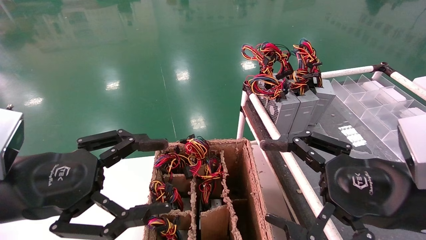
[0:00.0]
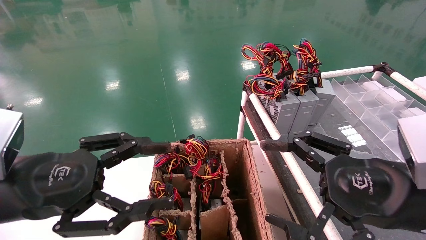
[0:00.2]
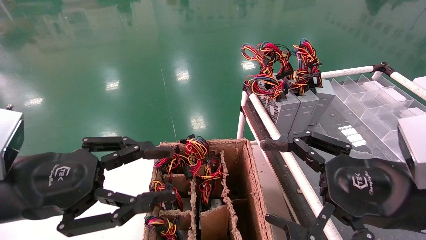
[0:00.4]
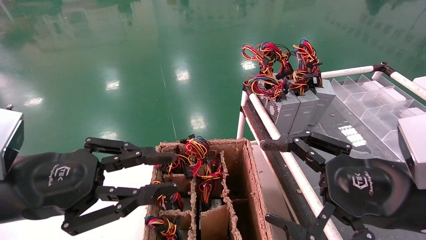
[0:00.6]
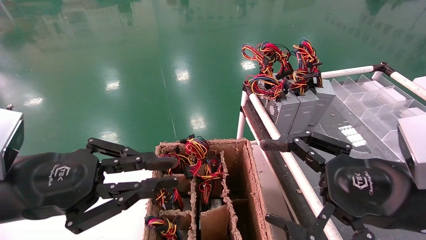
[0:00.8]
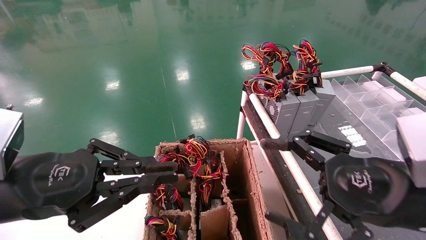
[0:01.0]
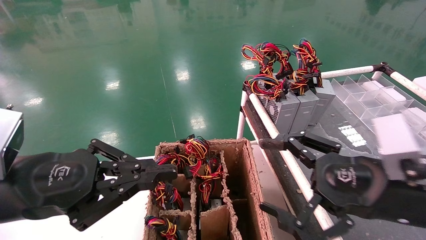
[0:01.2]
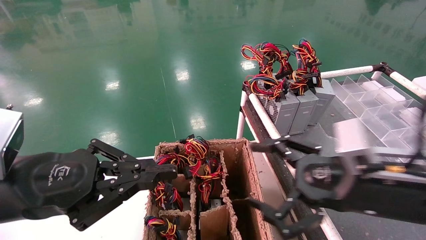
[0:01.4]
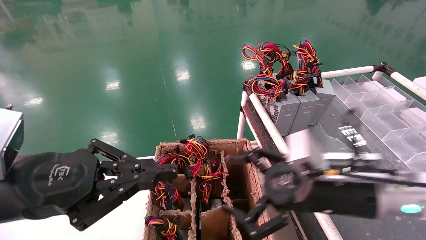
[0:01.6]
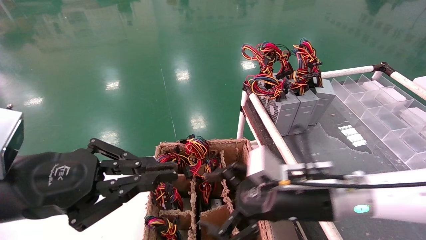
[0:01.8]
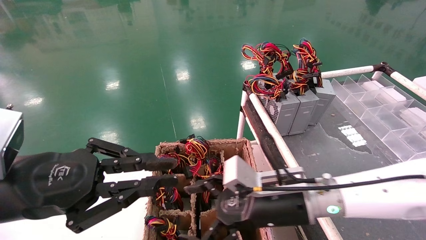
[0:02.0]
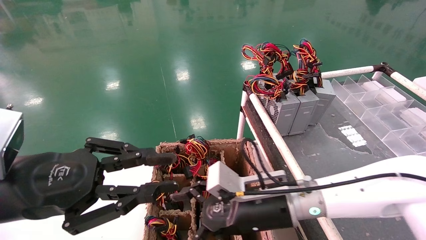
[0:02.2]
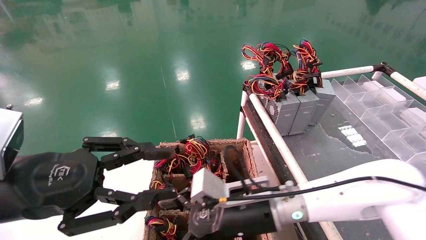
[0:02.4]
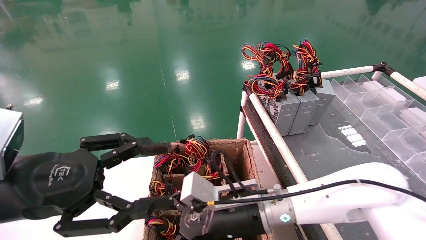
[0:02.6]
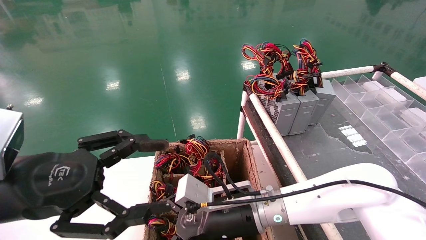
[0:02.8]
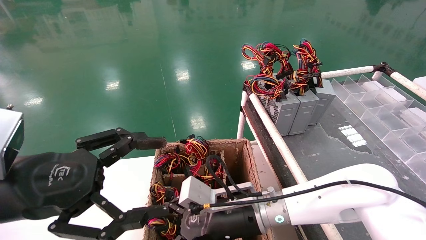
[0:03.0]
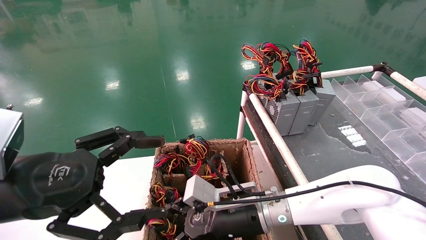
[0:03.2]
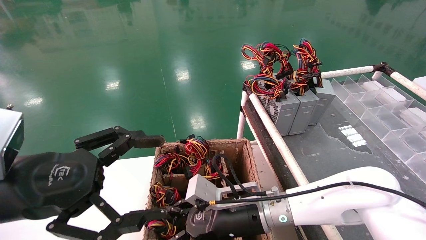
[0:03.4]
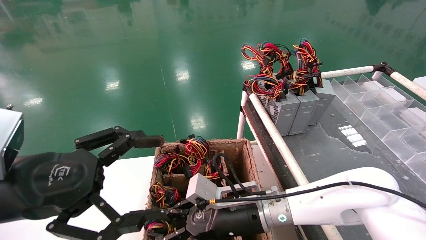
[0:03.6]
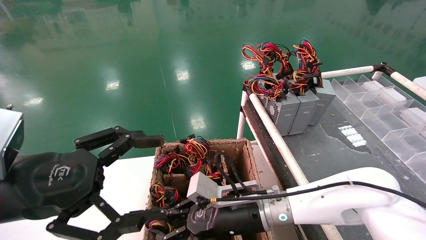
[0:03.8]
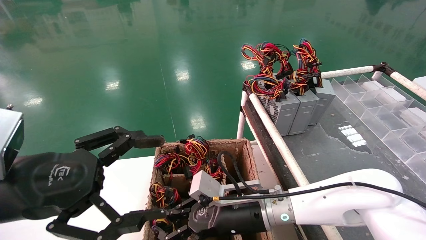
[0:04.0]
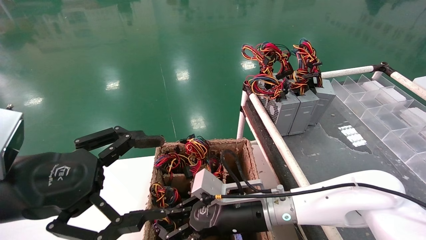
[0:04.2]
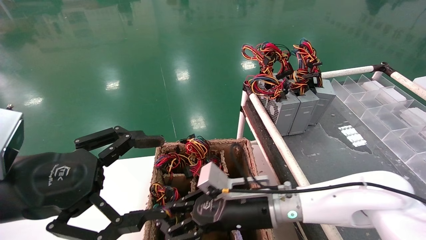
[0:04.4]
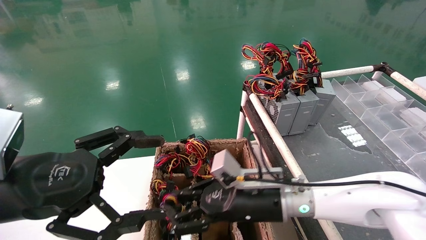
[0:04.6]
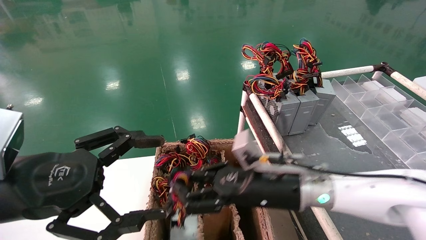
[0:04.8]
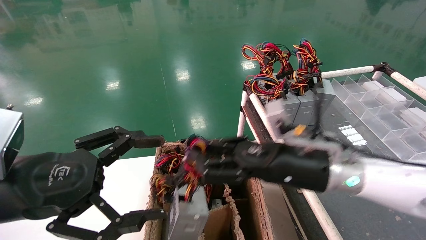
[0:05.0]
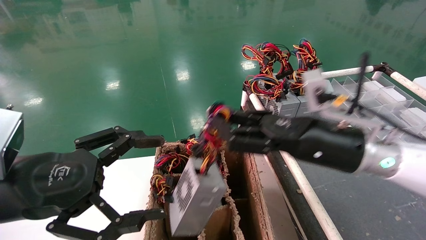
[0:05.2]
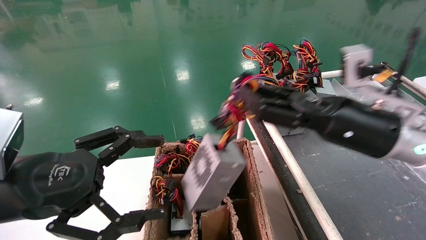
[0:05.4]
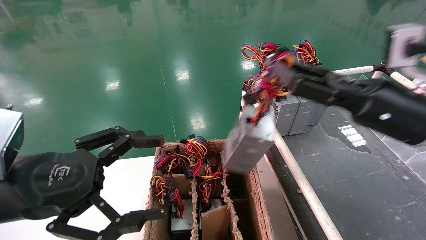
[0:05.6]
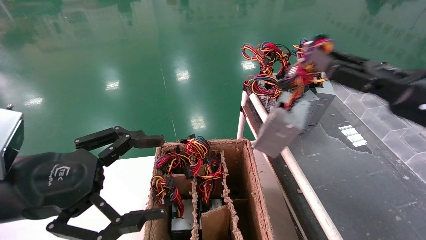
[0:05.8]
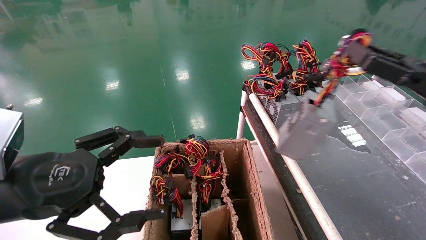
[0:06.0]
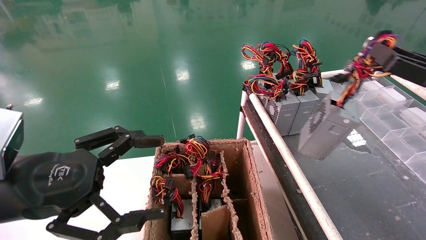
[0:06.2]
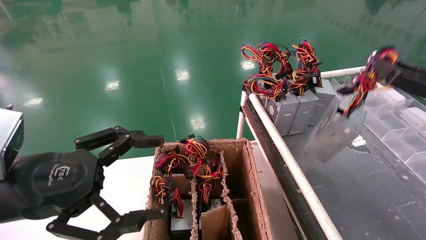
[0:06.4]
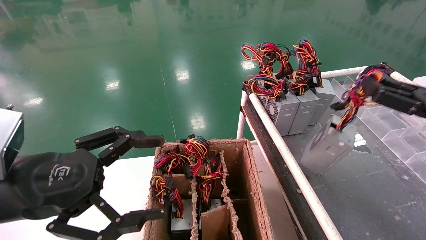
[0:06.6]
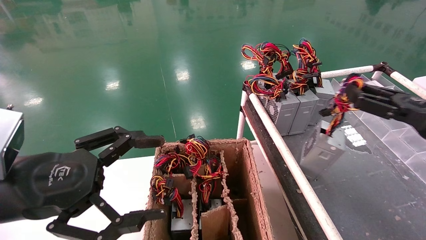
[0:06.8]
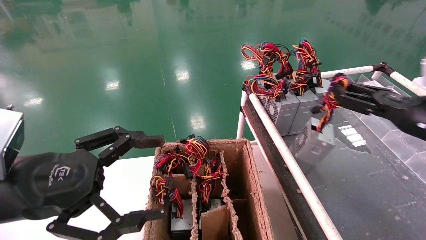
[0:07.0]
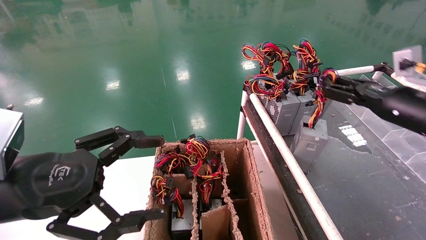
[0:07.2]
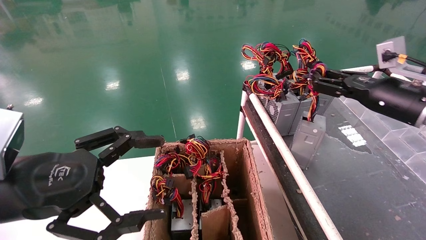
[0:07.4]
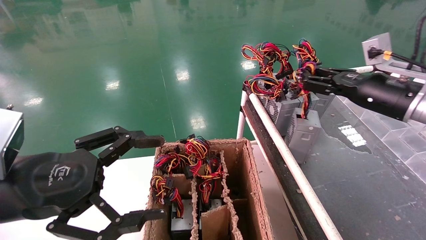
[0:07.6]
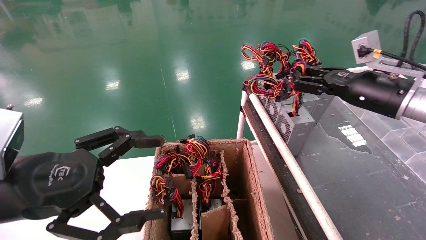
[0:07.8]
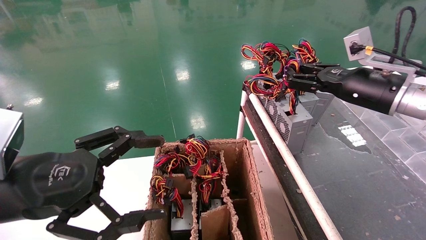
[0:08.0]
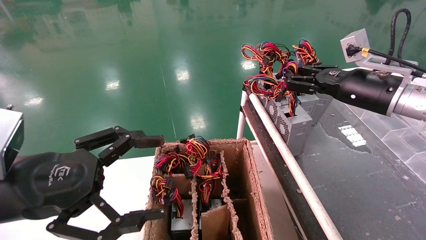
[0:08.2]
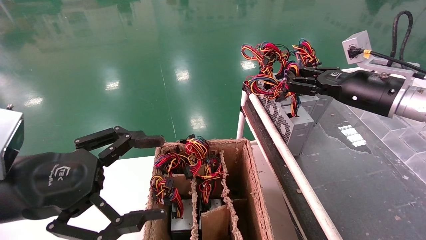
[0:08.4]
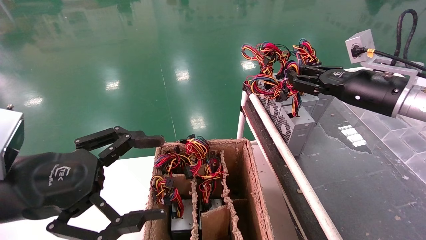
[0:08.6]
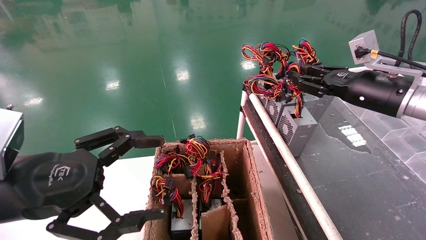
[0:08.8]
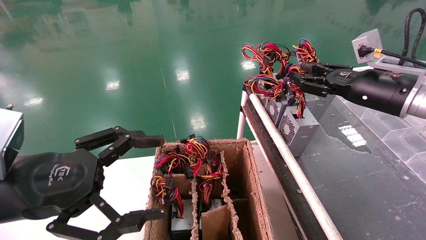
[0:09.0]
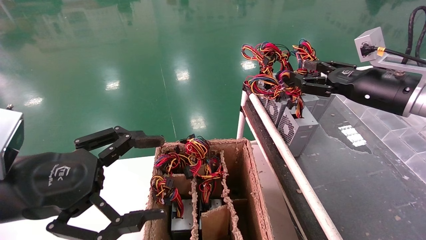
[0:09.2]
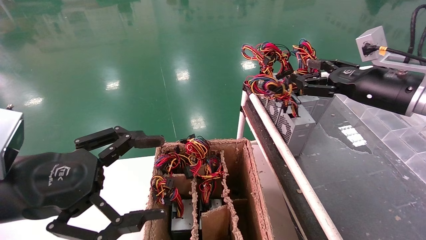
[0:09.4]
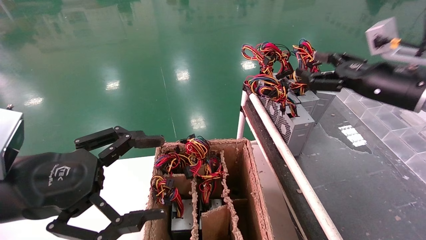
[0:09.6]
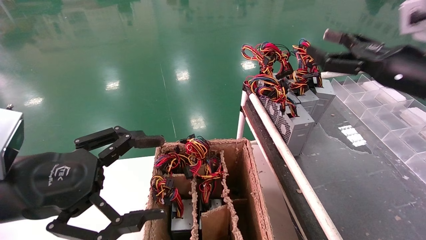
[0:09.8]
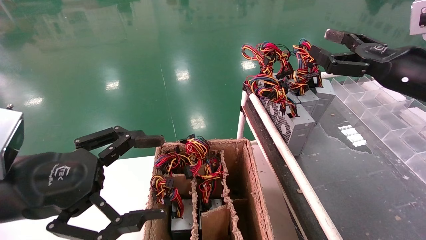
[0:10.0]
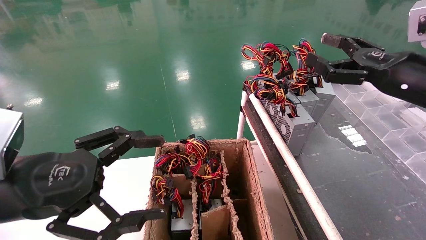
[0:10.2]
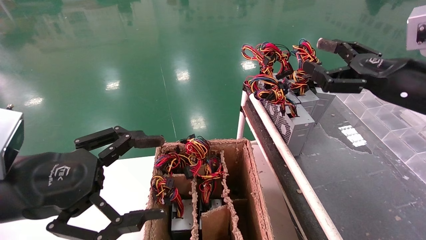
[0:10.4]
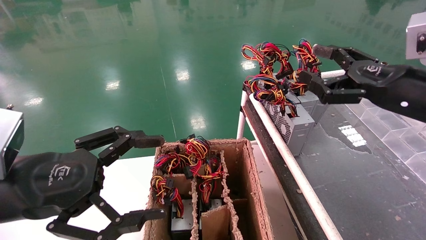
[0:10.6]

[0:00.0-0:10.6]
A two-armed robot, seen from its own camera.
Step, 1.4 to 4.6 s: Grab and lift the power supply from the large box.
Step, 4.8 to 8.8 s: Place the power supply on the operating table.
0.0 to 1.6 s: The left gripper closes up. Meanwhile the right gripper travels forward and to the left by roughly 10 cm.
1.6 to 3.0 s: The left gripper opens up. Meanwhile the right gripper goes roughly 15 cm to the left and downward.
3.0 to 4.6 s: The right gripper moves roughly 5 cm, and closes up.
4.6 to 6.0 s: The right gripper moves to the right and upward, about 30 cm.
6.0 to 7.6 s: The right gripper heads forward, covering roughly 10 cm.
7.6 to 9.0 s: There are only small adjustments of the grippers.
9.0 to 10.6 s: The right gripper goes some 5 cm backward, and opens.

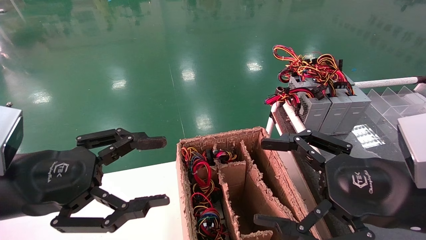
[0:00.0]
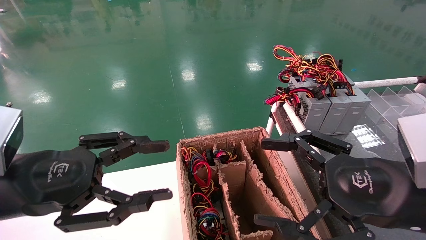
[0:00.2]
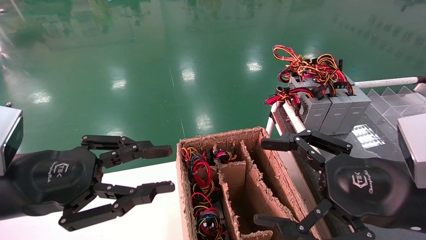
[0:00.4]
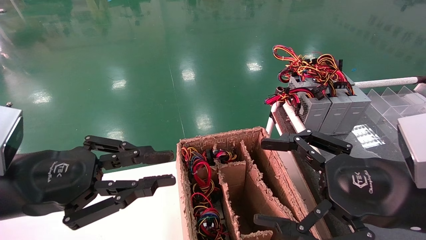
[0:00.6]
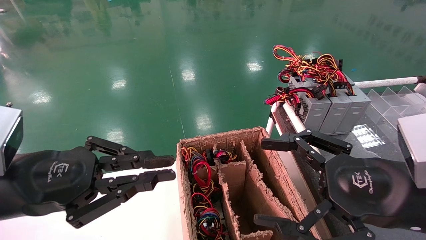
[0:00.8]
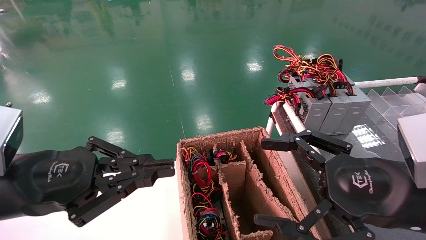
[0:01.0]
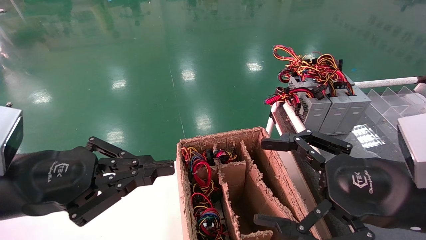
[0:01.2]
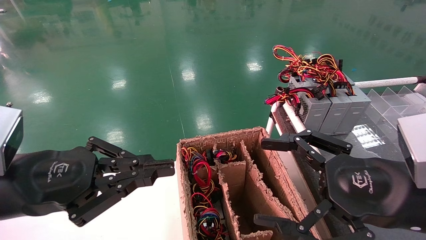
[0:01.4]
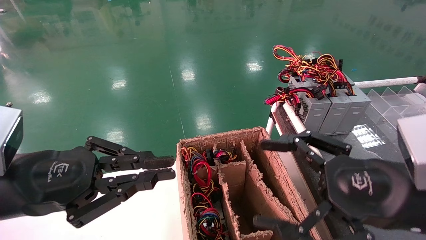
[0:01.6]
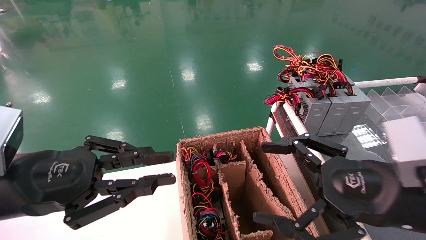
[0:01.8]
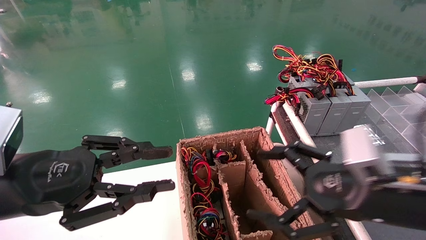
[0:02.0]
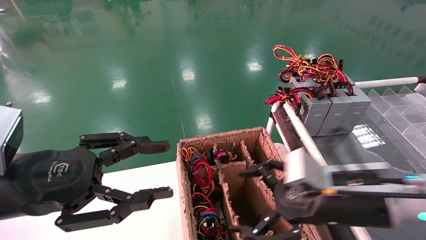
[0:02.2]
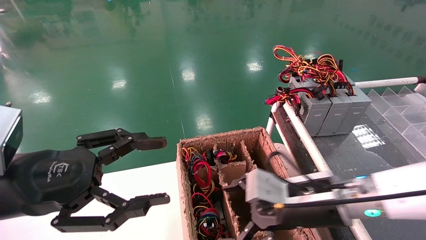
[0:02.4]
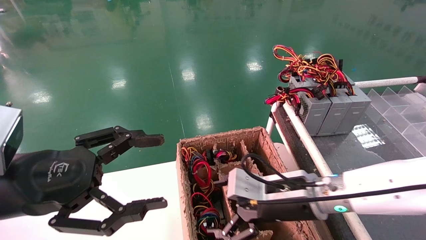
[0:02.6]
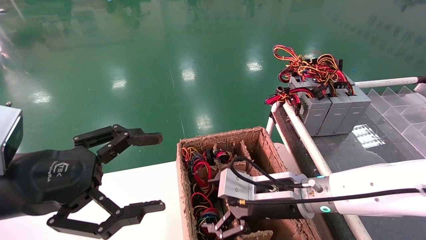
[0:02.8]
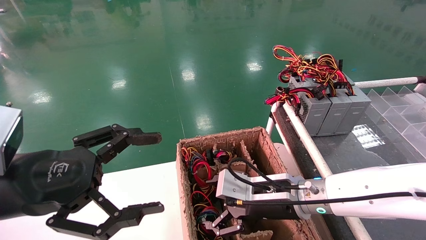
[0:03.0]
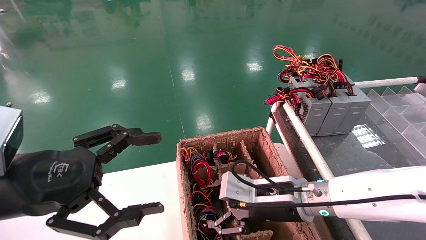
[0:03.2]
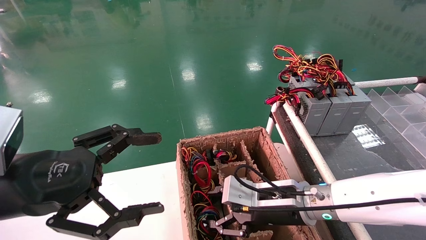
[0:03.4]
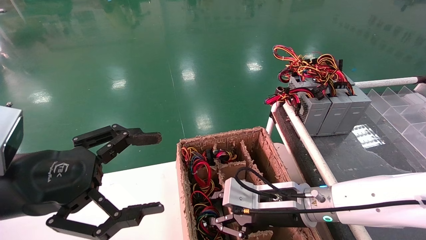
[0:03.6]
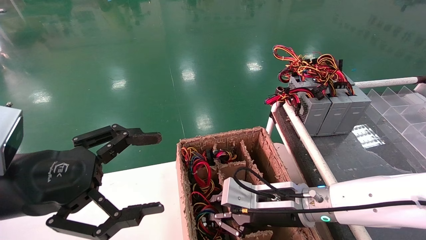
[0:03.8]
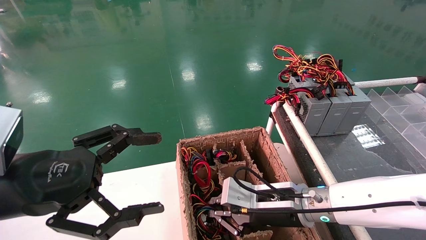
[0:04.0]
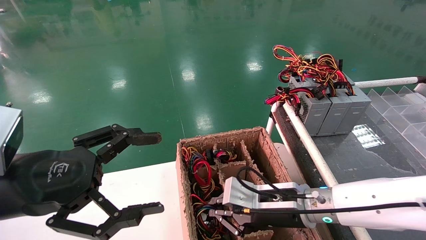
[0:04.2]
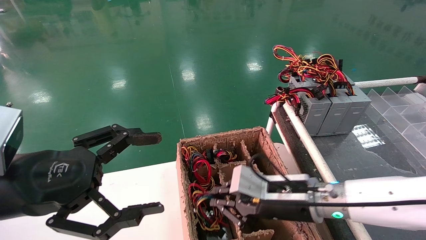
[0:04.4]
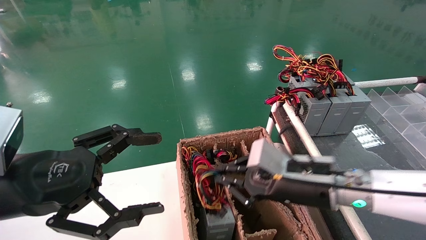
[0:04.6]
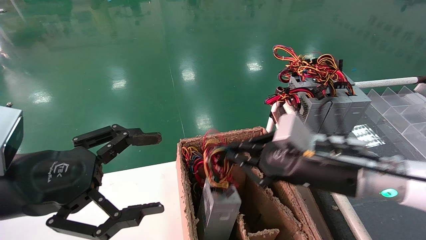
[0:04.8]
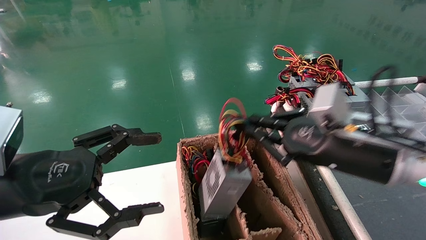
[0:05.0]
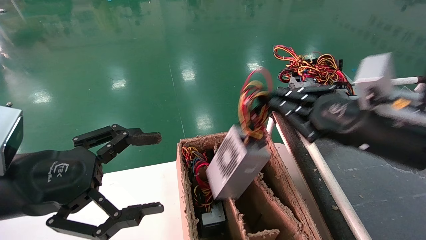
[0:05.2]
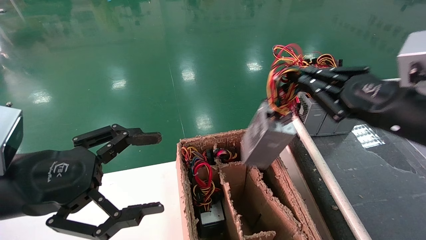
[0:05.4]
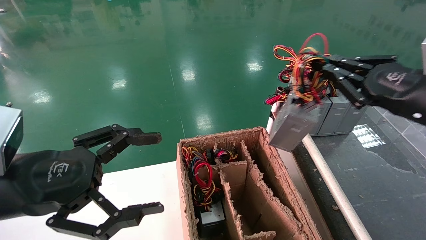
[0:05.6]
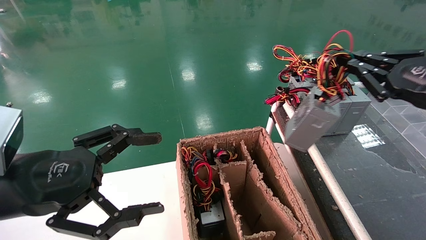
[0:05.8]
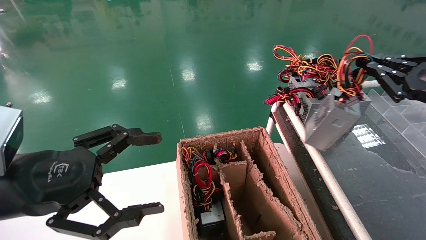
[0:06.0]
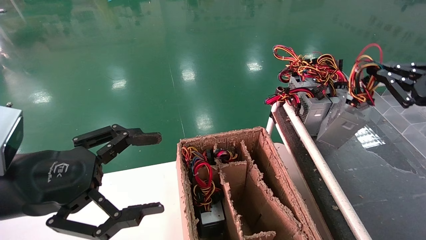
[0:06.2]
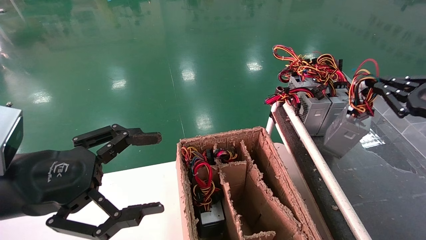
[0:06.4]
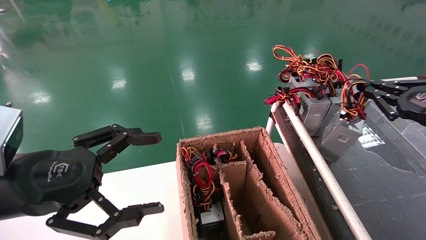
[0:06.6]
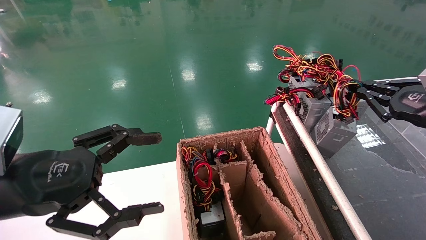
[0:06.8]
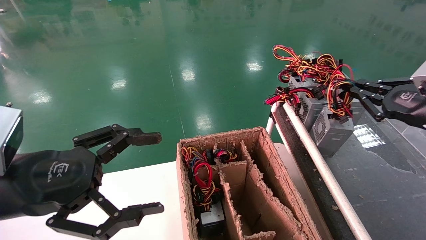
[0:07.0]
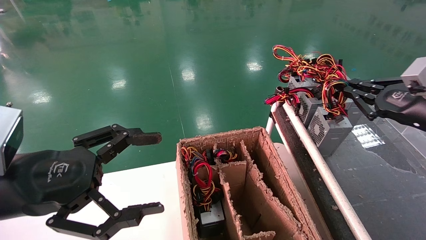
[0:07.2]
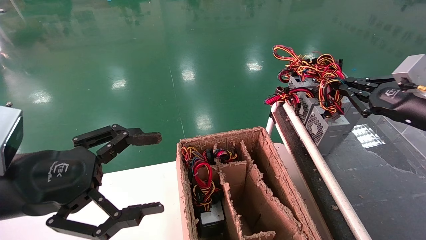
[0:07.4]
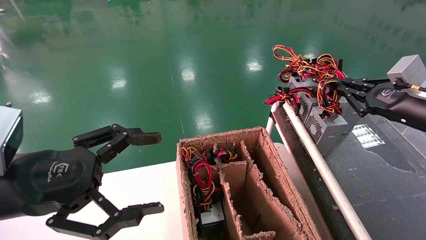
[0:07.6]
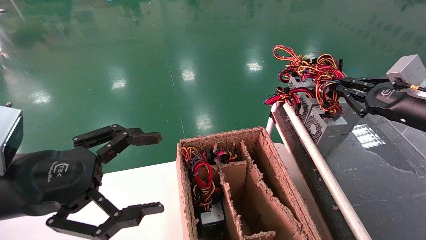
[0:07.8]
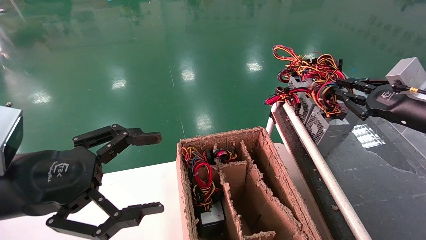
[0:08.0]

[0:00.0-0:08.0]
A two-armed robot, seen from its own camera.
Step, 1.2 to 4.0 s: Grab and lift the power supply from the large box.
Step, 4.2 to 7.6 s: Place the power supply on the operating table.
0.0 to 1.6 s: The left gripper closes.
1.6 to 3.2 s: The right gripper is displaced to the left, forward and downward by roughly 20 cm. Meanwhile the left gripper opens its fingers.
3.2 to 4.8 s: The right gripper heads upward and to the right, covering about 10 cm, and closes.
4.8 to 6.4 s: The right gripper moves to the right, some 25 cm.
6.4 to 8.0 s: The right gripper changes place by some 5 cm.
